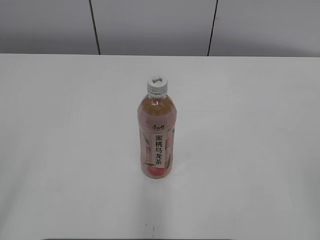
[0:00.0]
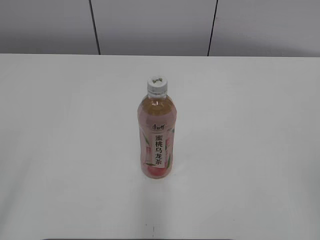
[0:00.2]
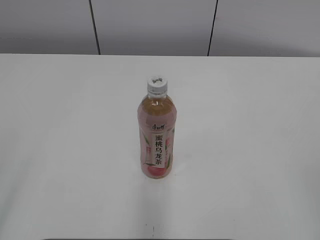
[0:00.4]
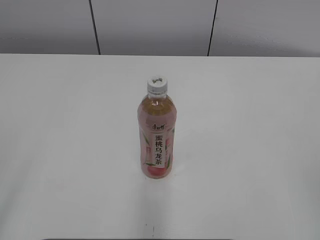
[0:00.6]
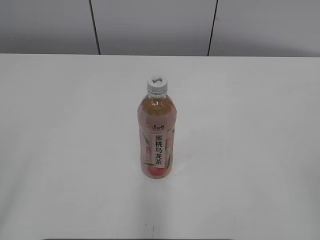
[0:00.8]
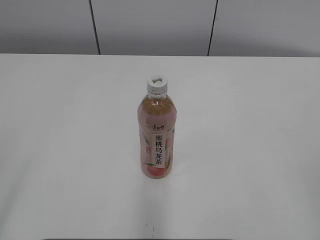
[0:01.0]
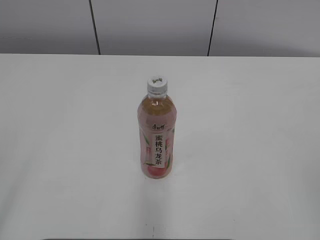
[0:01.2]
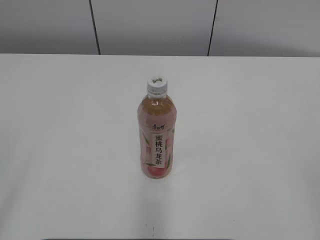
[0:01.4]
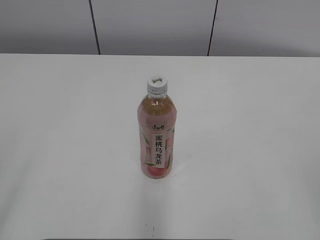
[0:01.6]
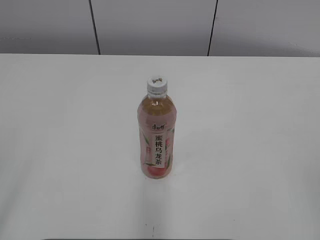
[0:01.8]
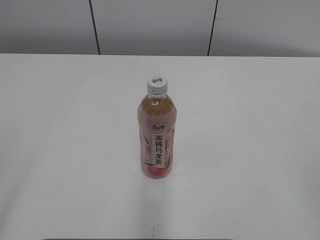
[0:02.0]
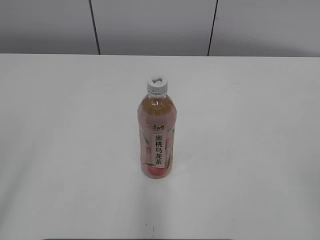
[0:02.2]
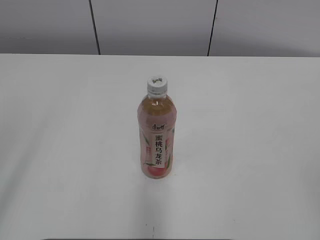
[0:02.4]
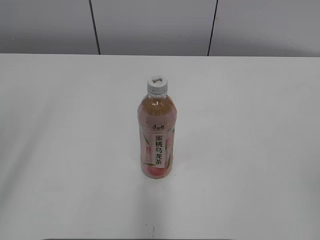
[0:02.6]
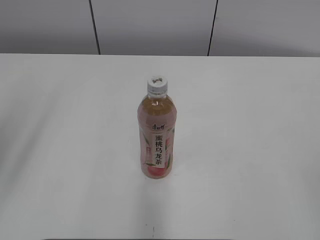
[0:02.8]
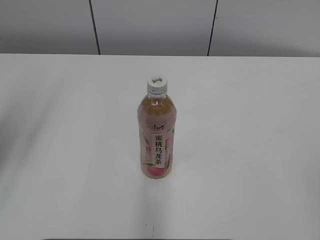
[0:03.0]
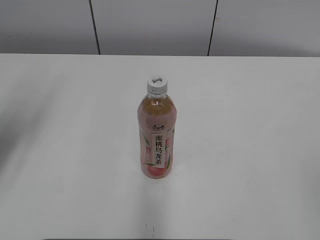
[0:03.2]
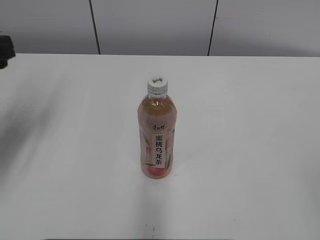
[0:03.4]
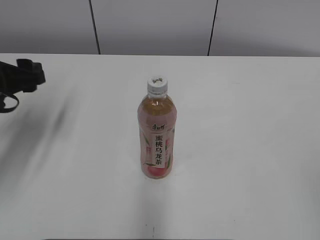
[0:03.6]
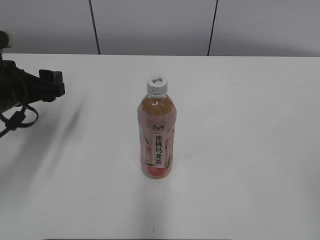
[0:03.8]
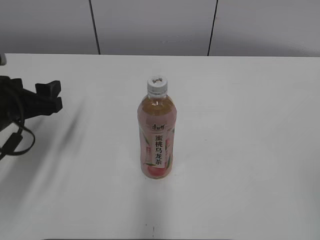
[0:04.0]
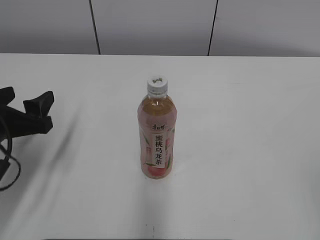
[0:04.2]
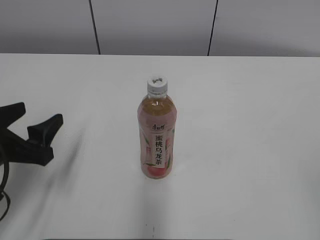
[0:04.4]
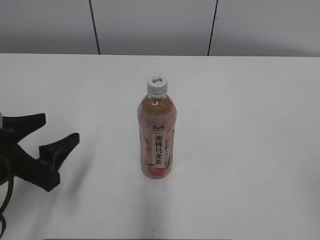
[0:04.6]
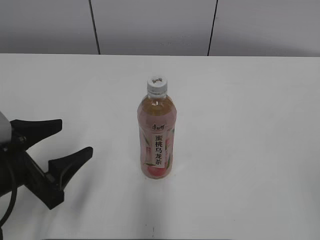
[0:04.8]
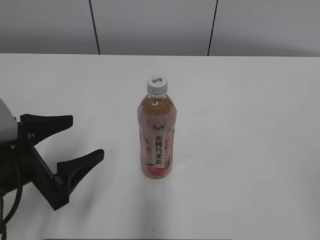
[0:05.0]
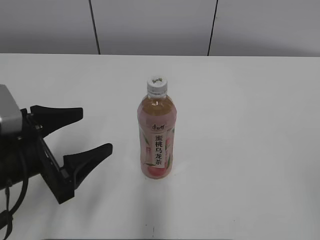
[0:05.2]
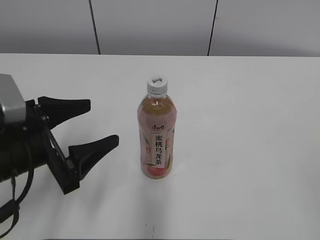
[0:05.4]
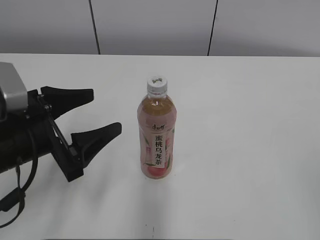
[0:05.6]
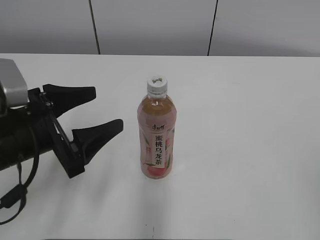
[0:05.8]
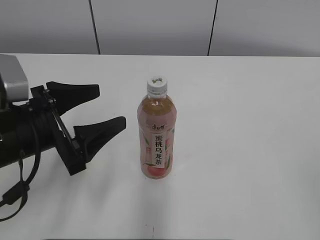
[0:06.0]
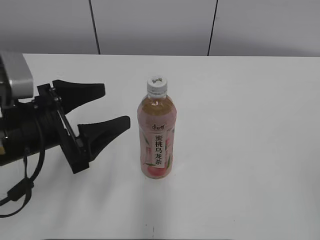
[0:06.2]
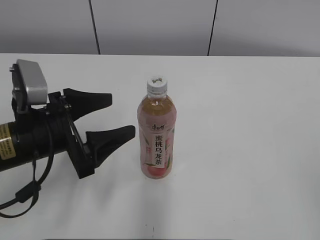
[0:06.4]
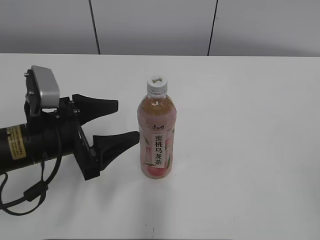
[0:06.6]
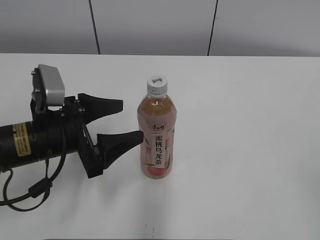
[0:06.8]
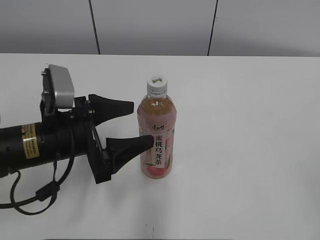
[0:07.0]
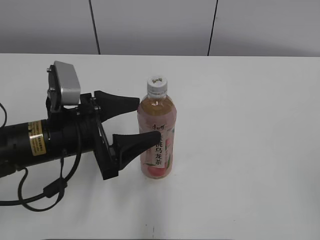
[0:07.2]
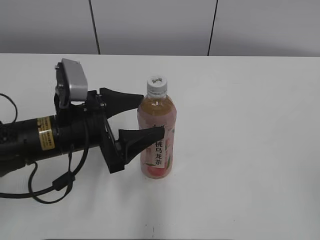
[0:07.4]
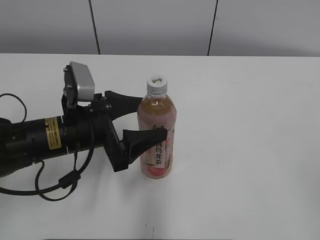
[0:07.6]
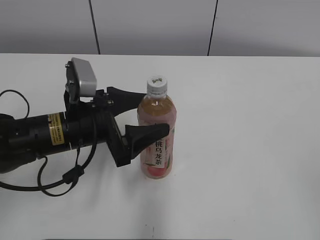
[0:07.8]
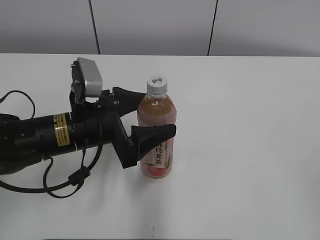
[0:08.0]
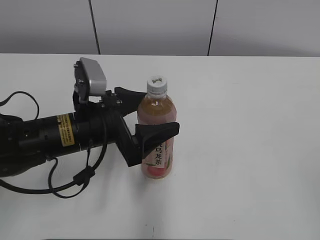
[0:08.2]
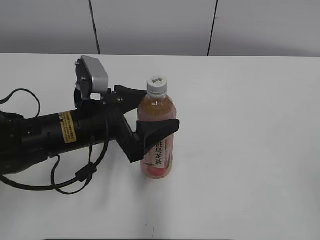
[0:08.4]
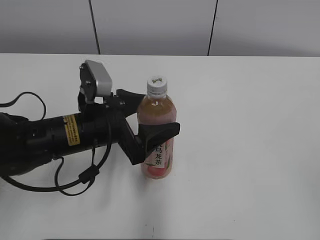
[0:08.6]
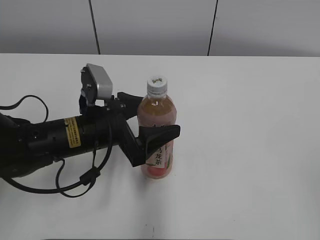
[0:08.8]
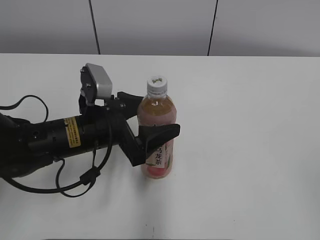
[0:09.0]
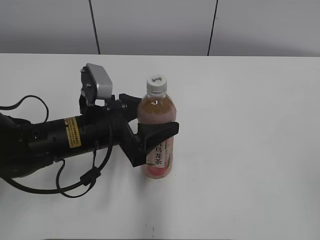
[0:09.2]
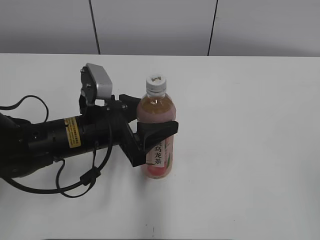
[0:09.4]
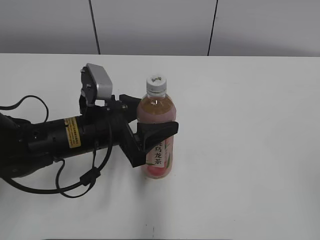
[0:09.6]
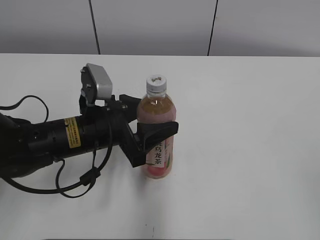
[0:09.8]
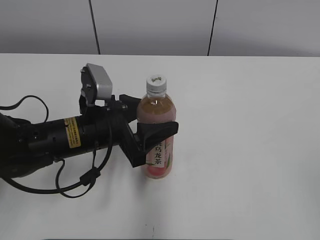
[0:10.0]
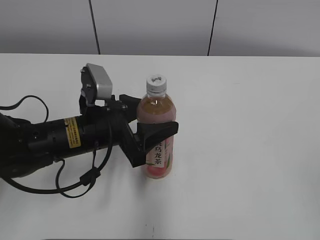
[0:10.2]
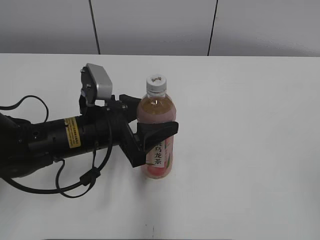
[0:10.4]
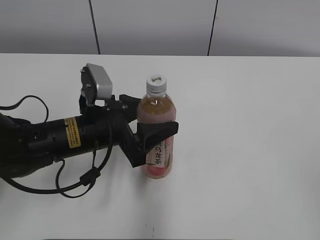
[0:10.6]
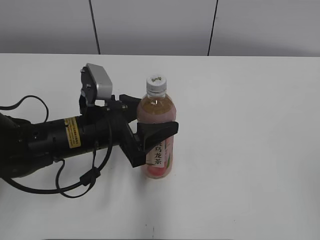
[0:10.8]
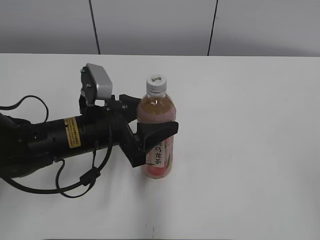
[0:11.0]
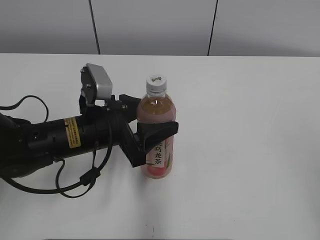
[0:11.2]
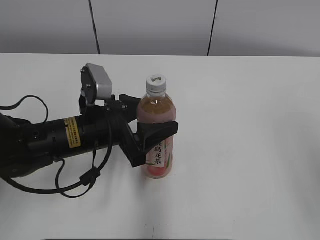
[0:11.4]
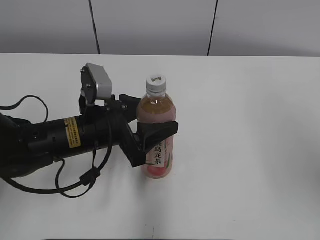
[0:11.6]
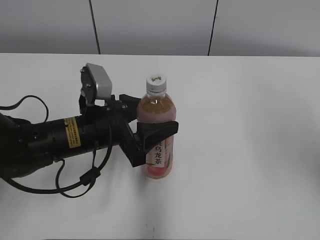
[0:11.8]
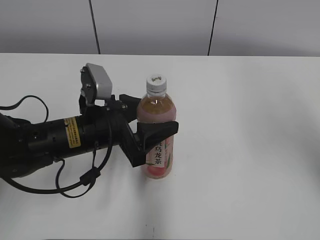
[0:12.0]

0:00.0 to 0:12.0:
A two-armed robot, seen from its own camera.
Step, 0:00.0 to 0:09.6: Grab the Peach Oolong Tea with the left hand.
0:01.6 to 0:03.0: The left gripper travels forward by about 20 cm.
0:03.0 to 0:04.4: The left gripper shifts approximately 15 cm downward.
0:04.4 to 0:06.0: The left gripper moves to the right, roughly 5 cm.
0:06.0 to 0:07.6: The left gripper moves to the right, roughly 5 cm.
0:07.6 to 0:09.0: The grippers make only small movements.
0:09.0 to 0:10.4: The two grippers keep their place.
0:10.4 to 0:12.0: The right gripper moves forward and upward, about 25 cm.

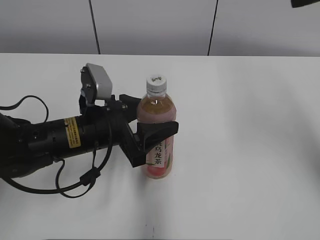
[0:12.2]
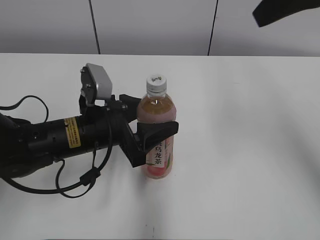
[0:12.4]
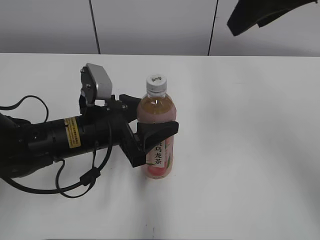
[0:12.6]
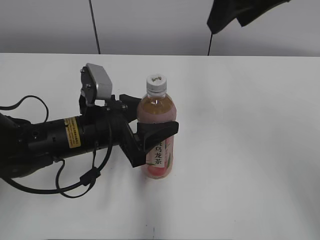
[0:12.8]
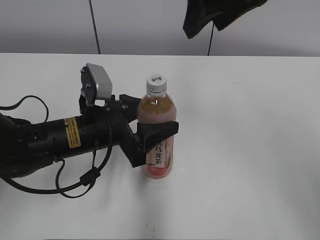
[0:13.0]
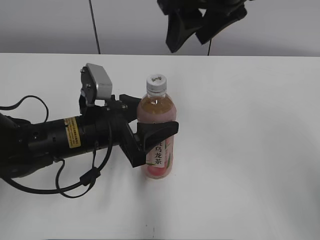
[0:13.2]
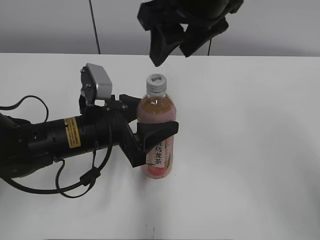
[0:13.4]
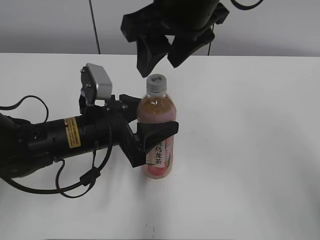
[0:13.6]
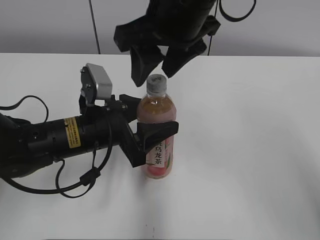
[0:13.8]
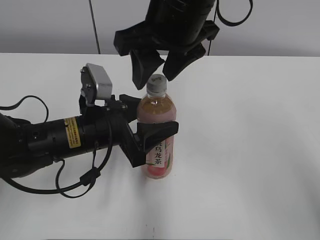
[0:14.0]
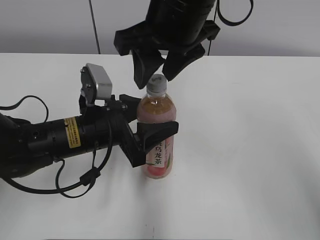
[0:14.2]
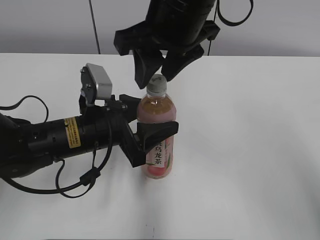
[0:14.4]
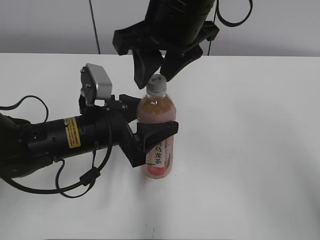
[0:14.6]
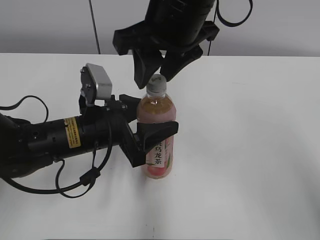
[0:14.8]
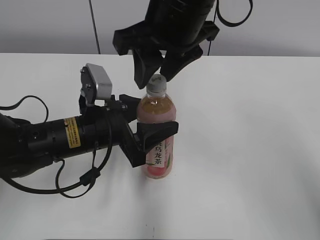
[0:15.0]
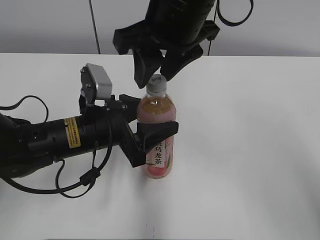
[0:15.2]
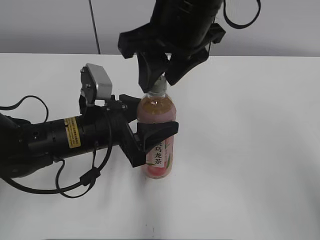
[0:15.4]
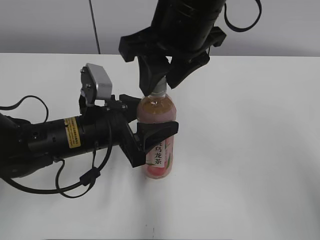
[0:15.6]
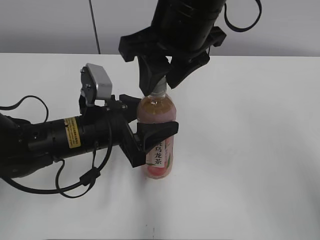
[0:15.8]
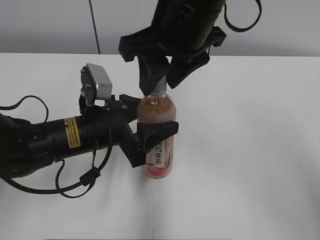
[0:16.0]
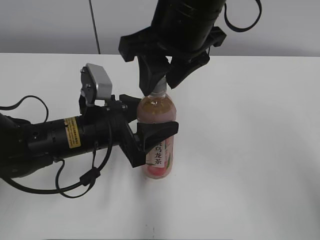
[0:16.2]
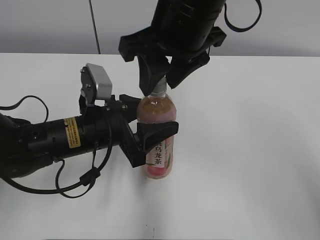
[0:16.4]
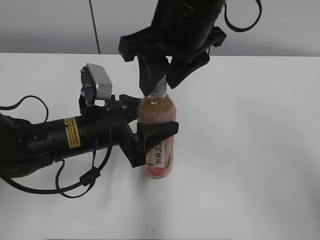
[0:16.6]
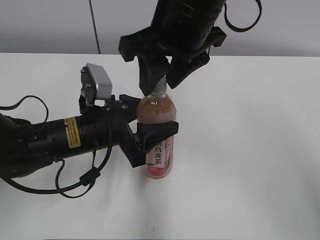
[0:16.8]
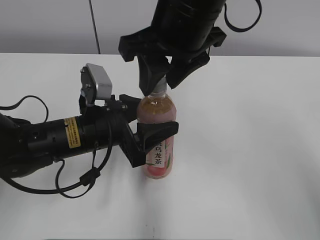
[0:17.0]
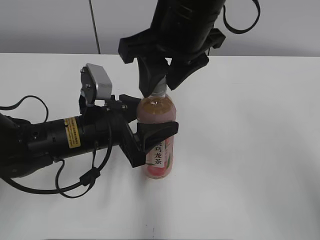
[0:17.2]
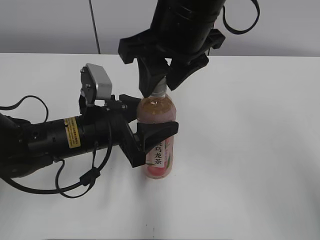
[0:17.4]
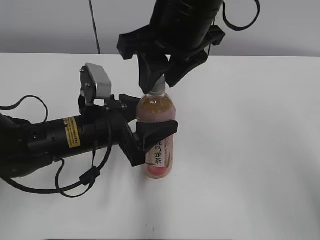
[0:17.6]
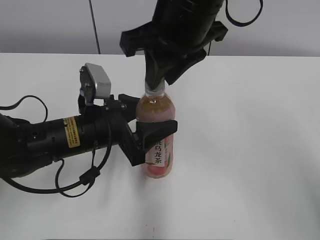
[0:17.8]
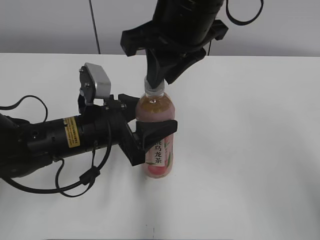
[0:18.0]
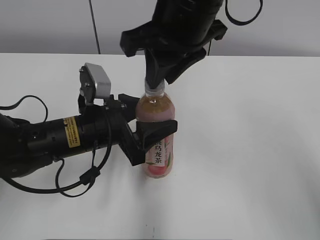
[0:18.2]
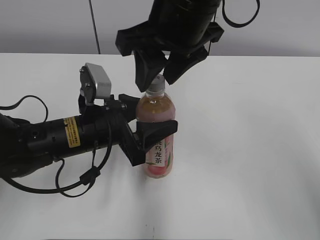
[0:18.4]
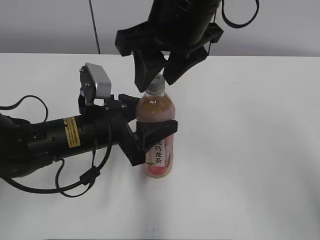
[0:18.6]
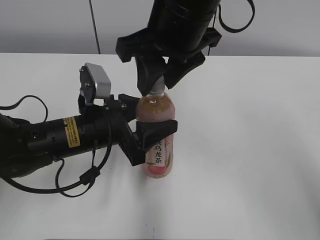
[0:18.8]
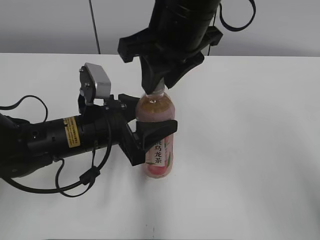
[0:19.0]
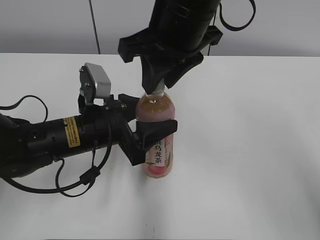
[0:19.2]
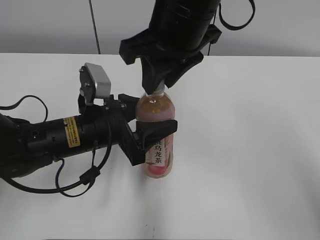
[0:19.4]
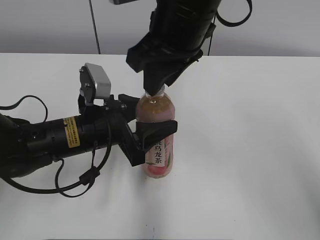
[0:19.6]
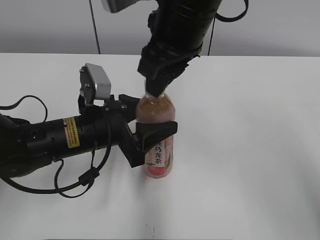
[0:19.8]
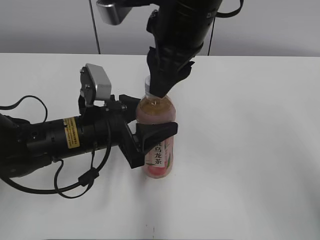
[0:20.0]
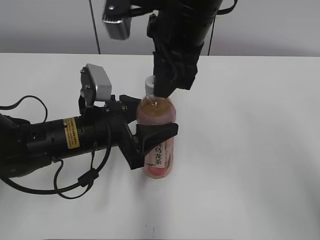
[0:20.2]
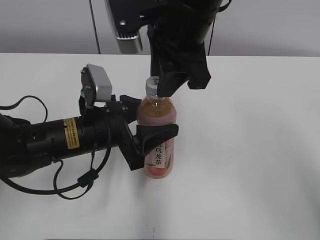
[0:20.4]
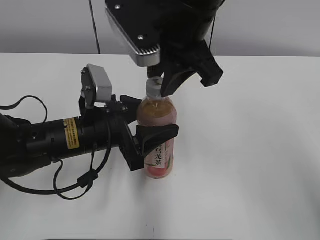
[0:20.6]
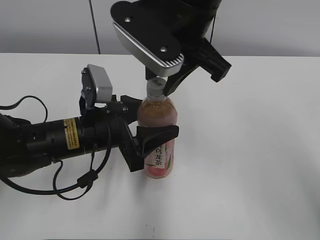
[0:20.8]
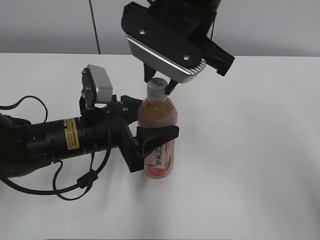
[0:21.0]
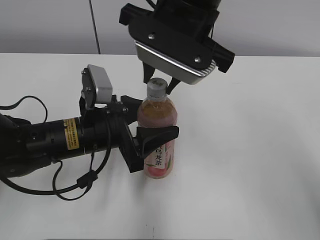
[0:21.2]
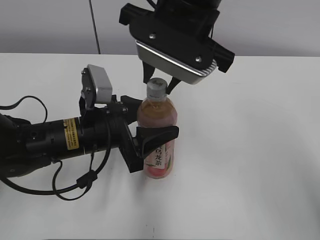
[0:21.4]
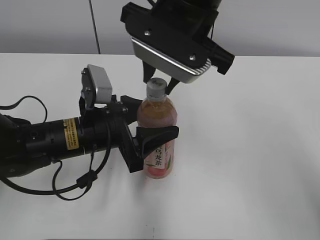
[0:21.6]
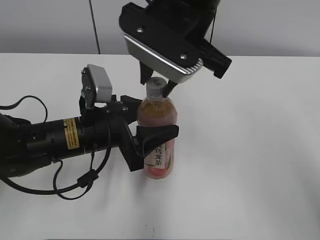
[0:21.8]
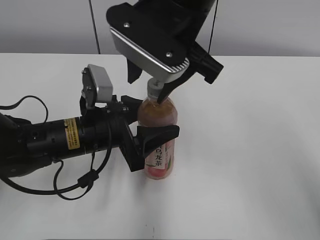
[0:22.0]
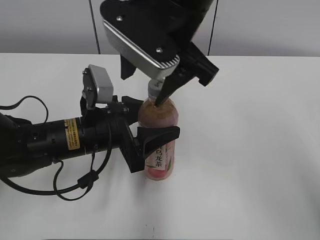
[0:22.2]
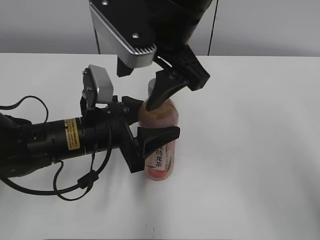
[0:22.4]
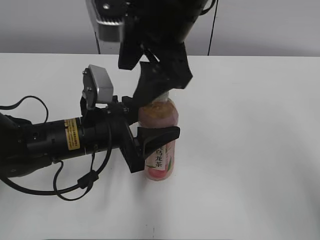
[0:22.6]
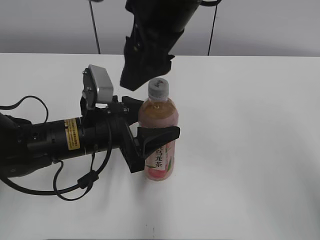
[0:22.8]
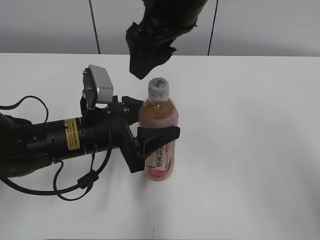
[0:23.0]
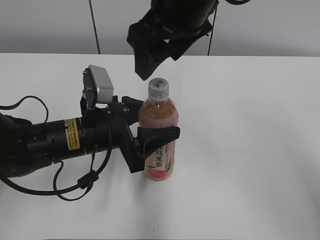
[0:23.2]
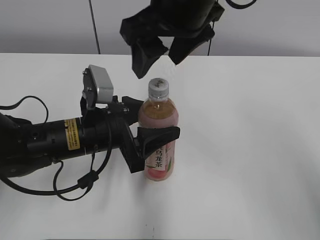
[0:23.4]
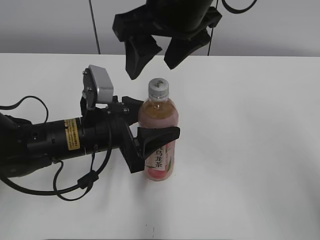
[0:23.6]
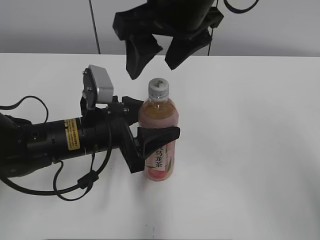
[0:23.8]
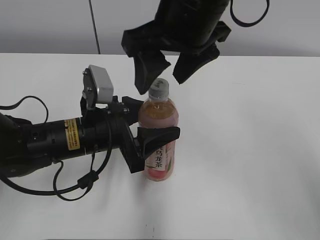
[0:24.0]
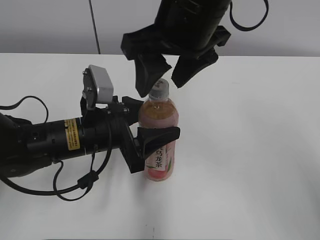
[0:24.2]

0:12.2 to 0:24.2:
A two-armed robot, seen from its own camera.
0:12.2 to 0:13.8: The right gripper moves to the left, roughly 20 cm.
0:13.8 to 0:16.6: Neither gripper changes place.
0:16.6 to 0:18.2: The right gripper closes.
0:18.2 to 0:19.8: The right gripper opens and closes again.
0:21.2 to 0:22.6: The right gripper opens.
